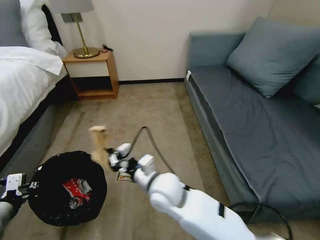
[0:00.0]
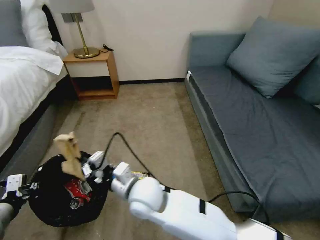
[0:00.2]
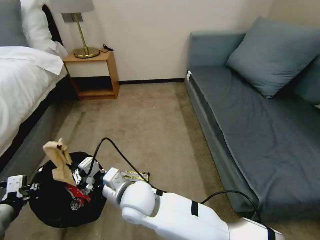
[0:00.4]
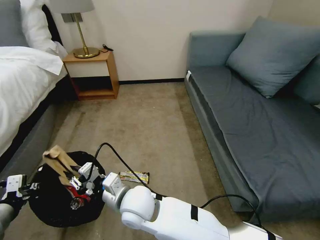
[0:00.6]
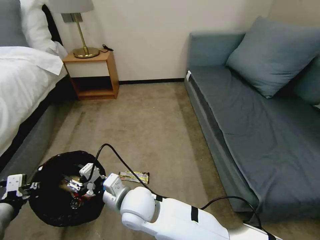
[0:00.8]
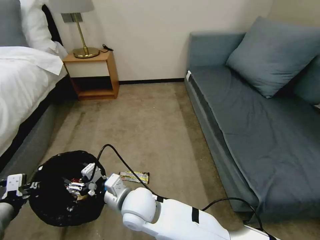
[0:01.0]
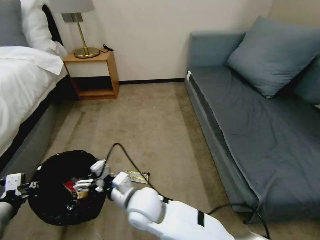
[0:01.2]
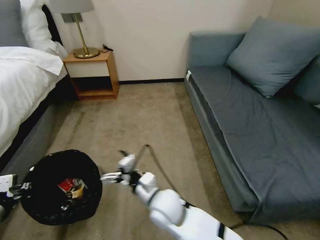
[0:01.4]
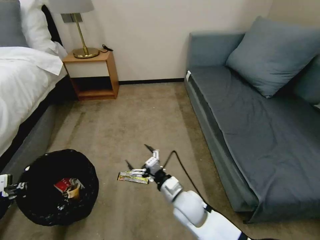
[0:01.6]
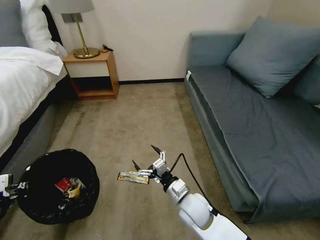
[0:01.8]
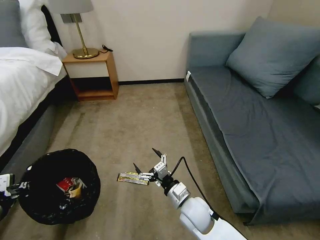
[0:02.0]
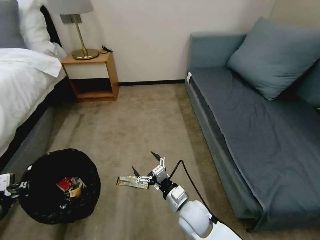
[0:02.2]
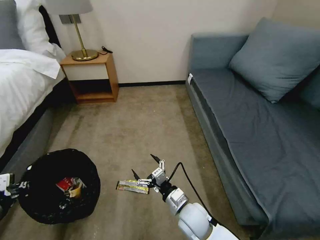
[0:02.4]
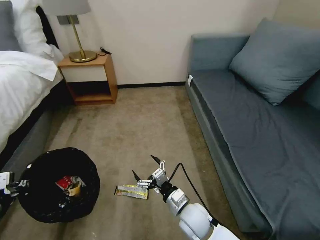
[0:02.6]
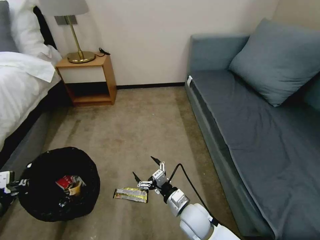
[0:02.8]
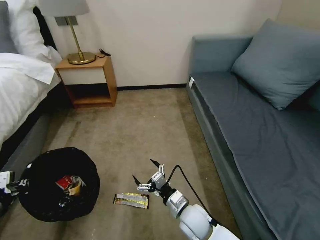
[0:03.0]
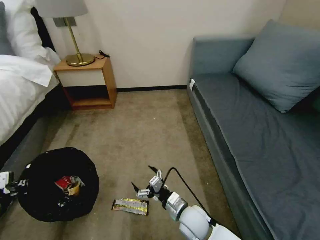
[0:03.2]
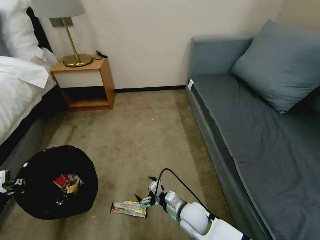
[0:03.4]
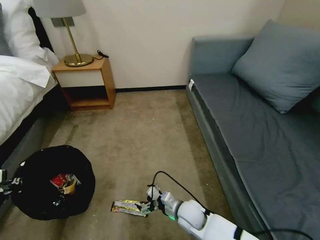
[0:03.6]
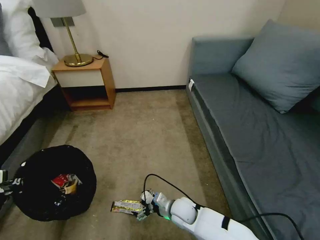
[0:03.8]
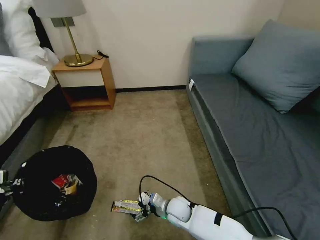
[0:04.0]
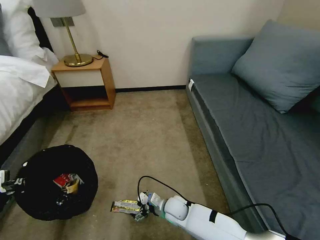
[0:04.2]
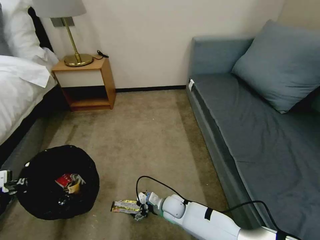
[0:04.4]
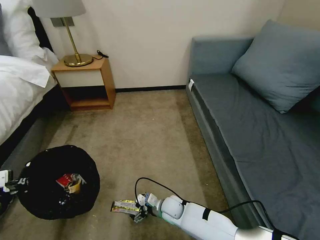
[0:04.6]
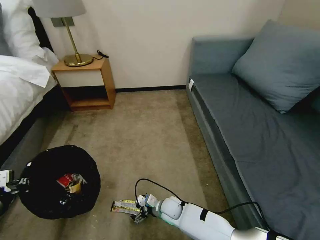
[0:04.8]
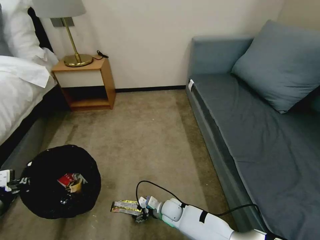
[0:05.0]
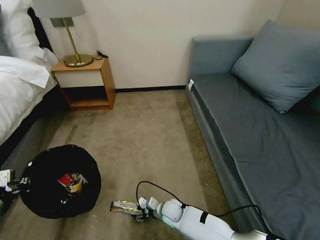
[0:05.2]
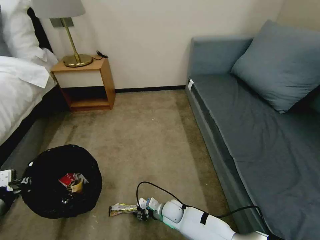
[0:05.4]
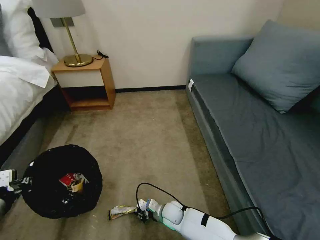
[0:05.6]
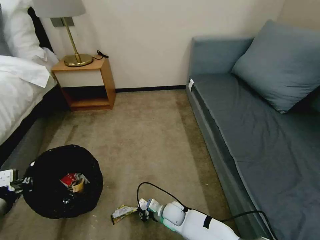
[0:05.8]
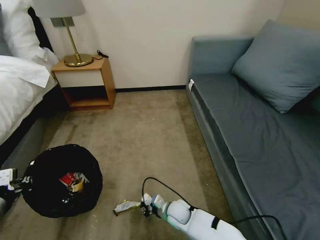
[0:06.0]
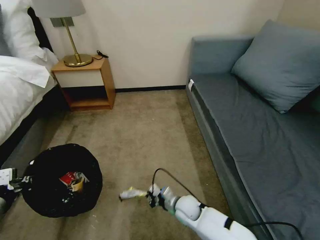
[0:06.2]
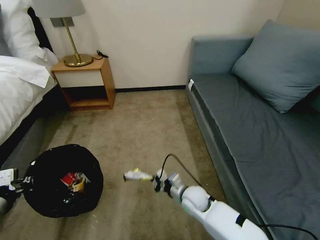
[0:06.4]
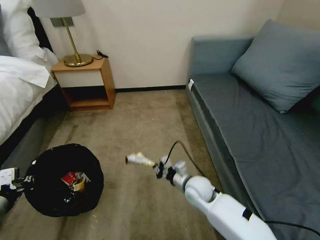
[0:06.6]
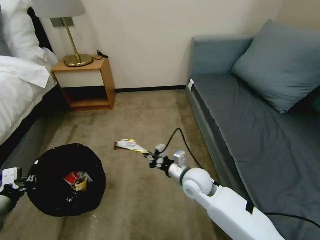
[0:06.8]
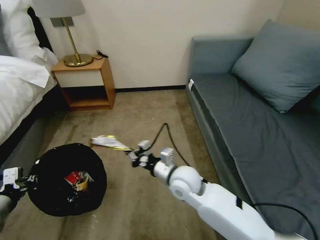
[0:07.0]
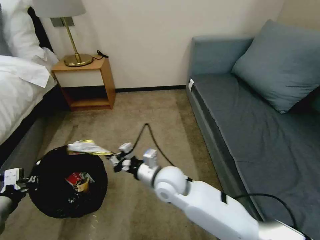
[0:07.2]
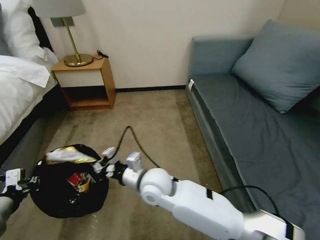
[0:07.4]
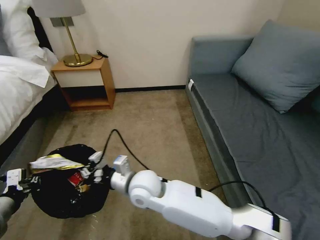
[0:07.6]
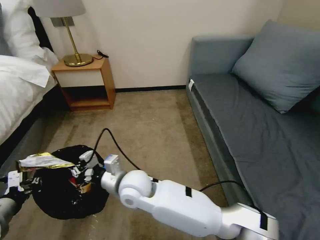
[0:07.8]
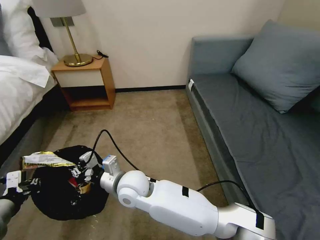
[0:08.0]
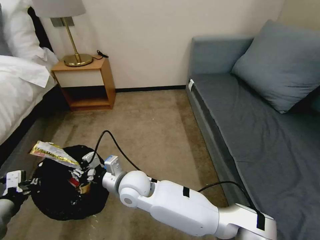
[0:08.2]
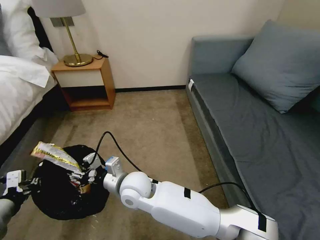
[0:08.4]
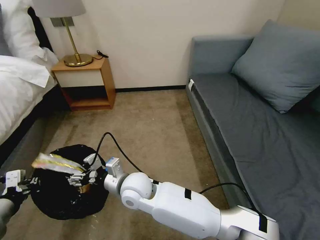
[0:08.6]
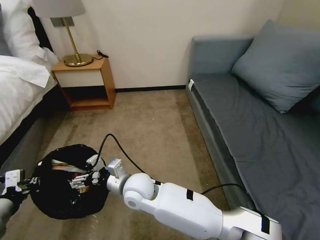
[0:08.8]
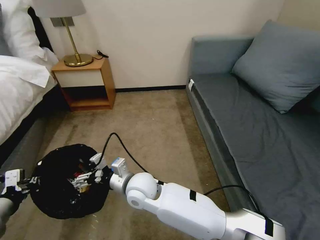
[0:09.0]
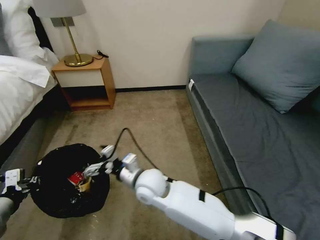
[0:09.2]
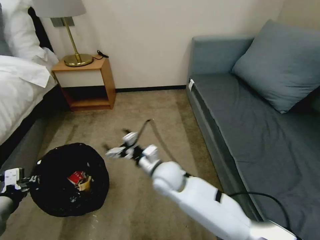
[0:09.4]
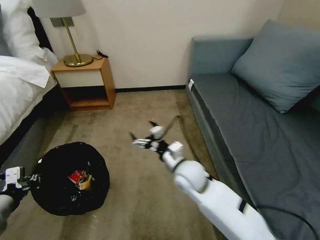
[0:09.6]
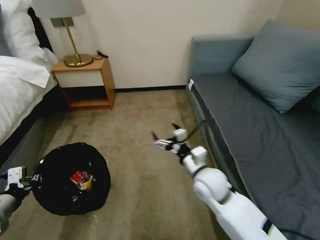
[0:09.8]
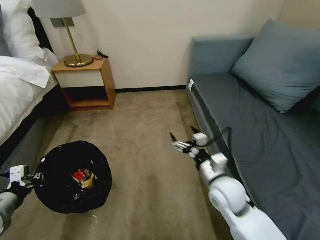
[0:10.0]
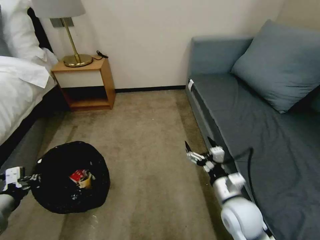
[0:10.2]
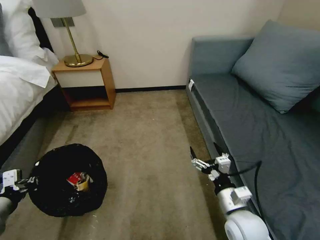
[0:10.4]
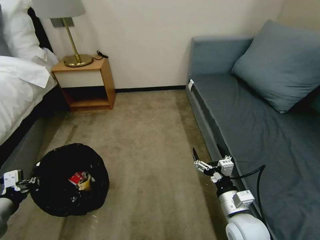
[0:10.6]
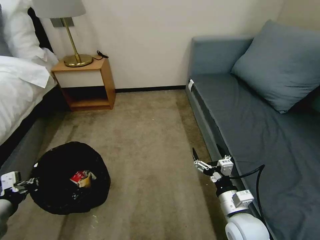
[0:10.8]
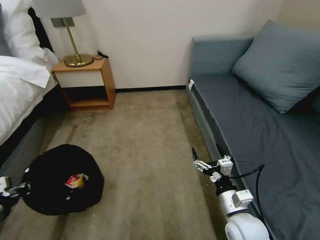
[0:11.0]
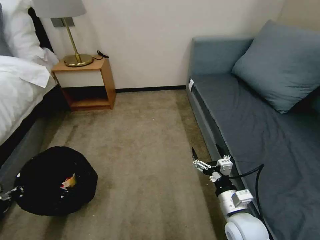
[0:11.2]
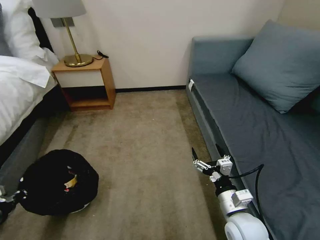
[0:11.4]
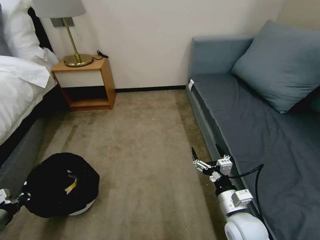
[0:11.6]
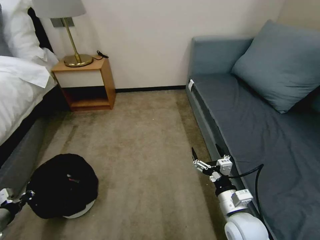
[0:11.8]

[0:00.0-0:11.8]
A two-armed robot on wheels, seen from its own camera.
Task of the whole recording: Pick up the trash bin, then pick up the garbage on the floor and place it into the trash bin.
0:00.0 to 0:01.4: The right gripper moves downward, roughly 5 cm, moves about 10 cm to the left and comes back, and opens its fingers.
0:01.4 to 0:03.0: The right gripper moves to the right and downward, some 15 cm.
0:03.0 to 0:04.4: The right gripper heads downward, forward and to the left, covering approximately 15 cm.
0:04.4 to 0:06.0: The right gripper closes.
0:06.0 to 0:07.4: The right gripper goes some 25 cm upward.
0:07.4 to 0:08.8: The right gripper shifts about 5 cm to the left, and opens.
0:08.8 to 0:10.4: The right gripper is displaced to the right by some 30 cm.
0:10.4 to 0:11.8: The left gripper shifts approximately 10 cm downward and to the left.

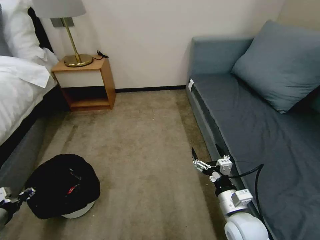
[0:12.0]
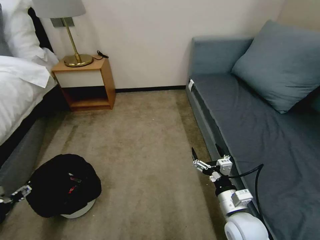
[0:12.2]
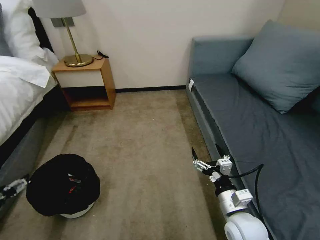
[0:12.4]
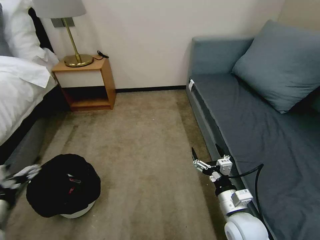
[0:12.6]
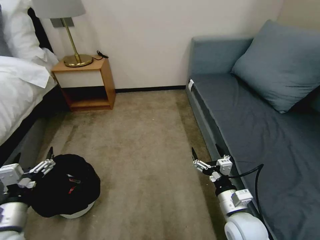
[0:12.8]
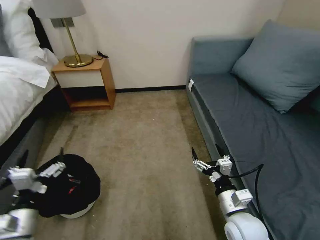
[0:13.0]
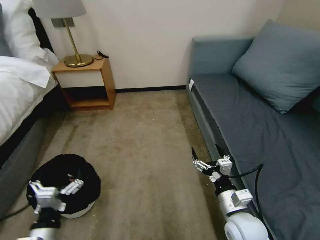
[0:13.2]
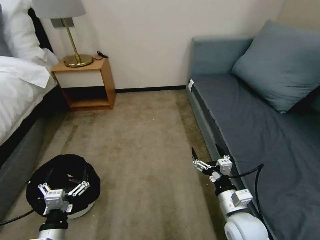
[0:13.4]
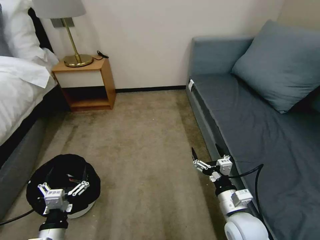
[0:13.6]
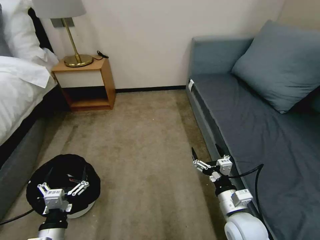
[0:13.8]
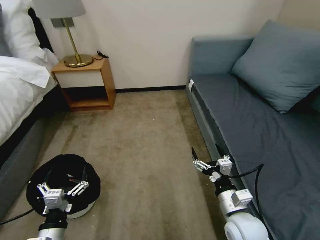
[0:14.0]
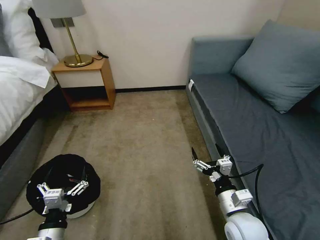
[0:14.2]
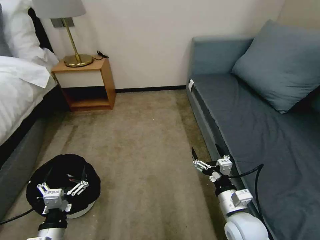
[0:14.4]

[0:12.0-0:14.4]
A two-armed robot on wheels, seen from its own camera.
Task of the whole recording: Pick up the trash bin, then pick up the garbage on the floor and place it into the trash bin.
0:12.0 to 0:13.2: The left gripper goes approximately 20 cm to the right, and opens its fingers.
0:13.2 to 0:14.4: The grippers move only a little.

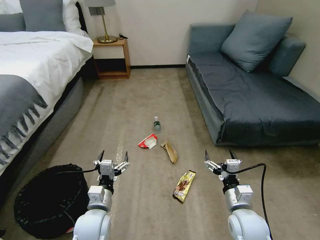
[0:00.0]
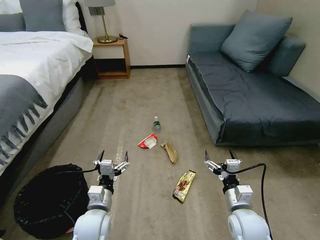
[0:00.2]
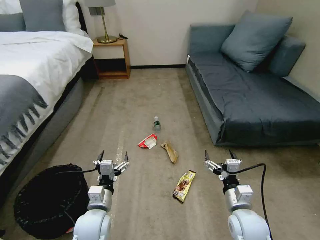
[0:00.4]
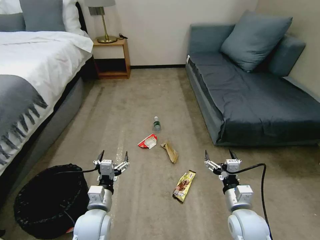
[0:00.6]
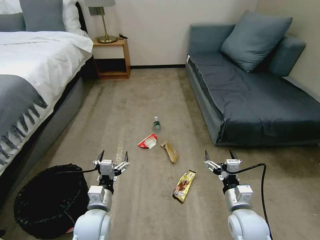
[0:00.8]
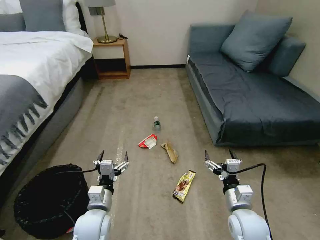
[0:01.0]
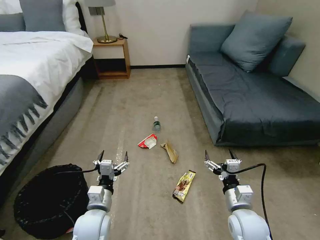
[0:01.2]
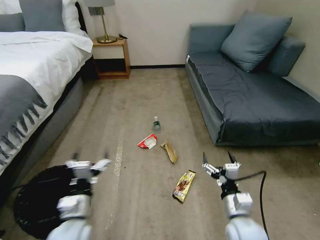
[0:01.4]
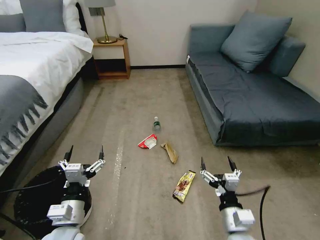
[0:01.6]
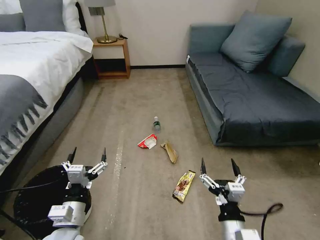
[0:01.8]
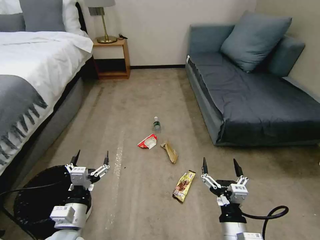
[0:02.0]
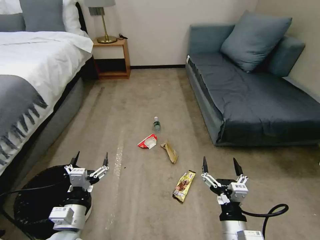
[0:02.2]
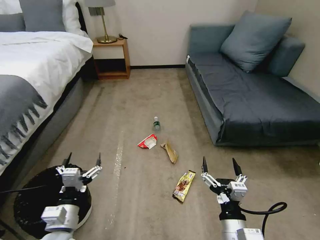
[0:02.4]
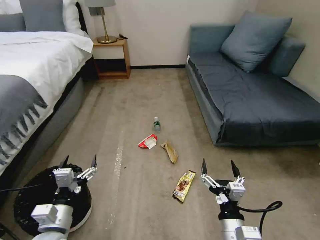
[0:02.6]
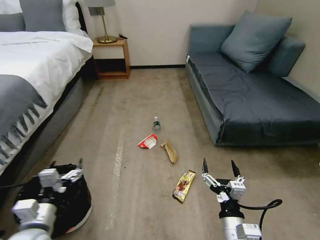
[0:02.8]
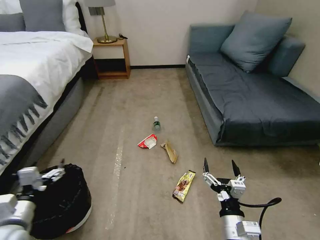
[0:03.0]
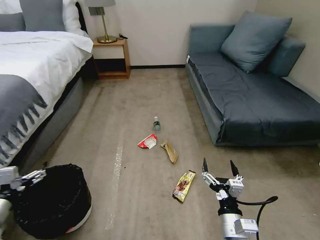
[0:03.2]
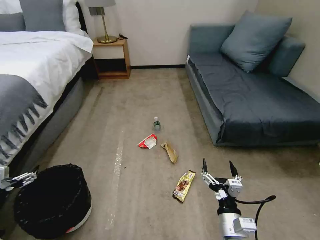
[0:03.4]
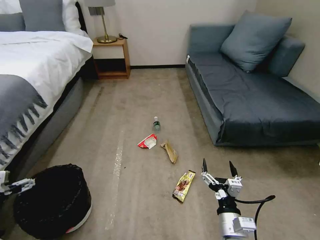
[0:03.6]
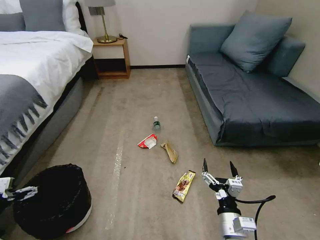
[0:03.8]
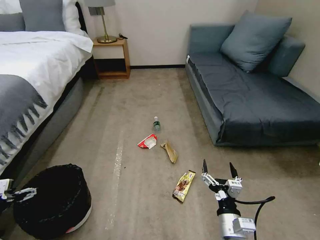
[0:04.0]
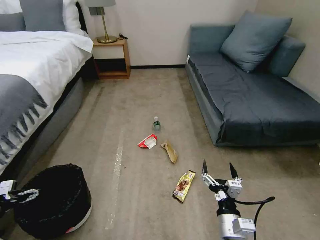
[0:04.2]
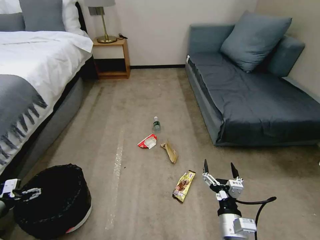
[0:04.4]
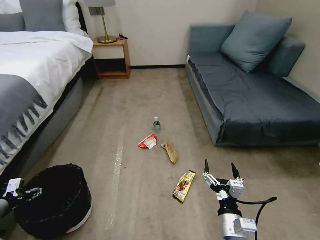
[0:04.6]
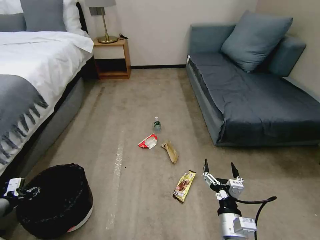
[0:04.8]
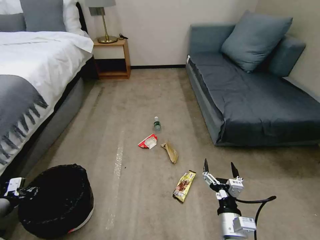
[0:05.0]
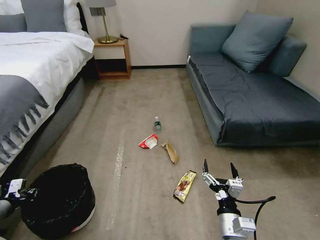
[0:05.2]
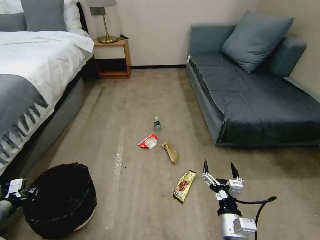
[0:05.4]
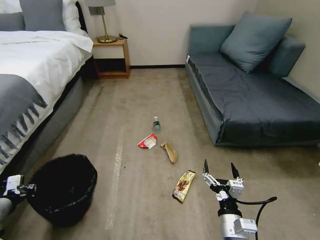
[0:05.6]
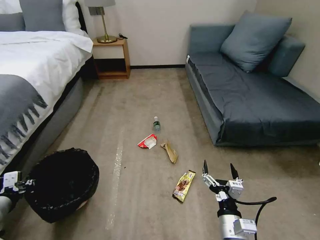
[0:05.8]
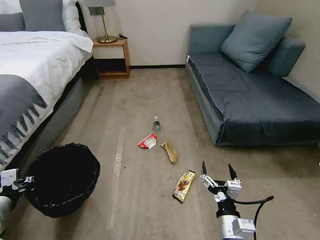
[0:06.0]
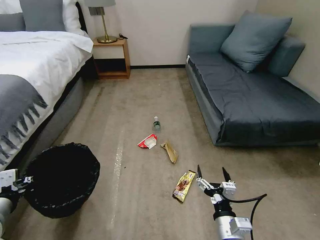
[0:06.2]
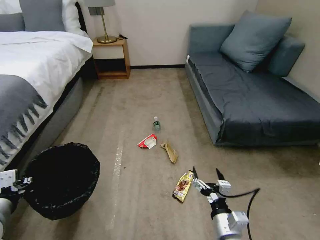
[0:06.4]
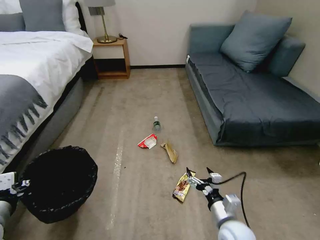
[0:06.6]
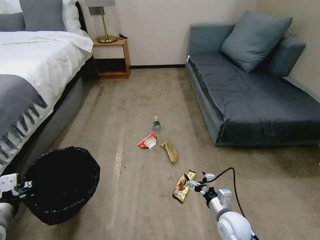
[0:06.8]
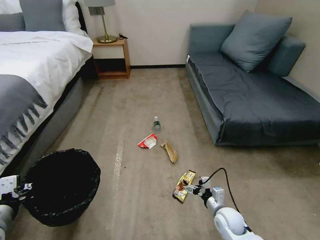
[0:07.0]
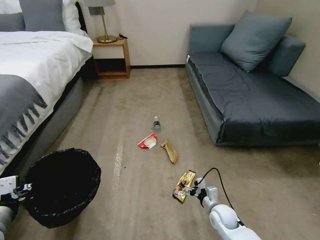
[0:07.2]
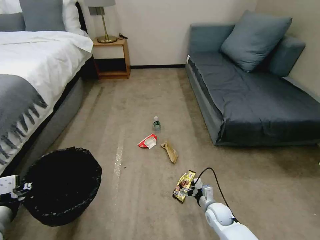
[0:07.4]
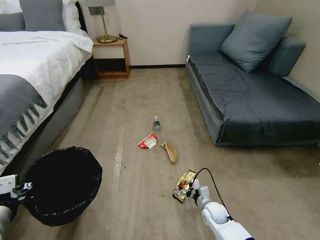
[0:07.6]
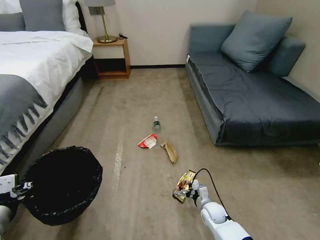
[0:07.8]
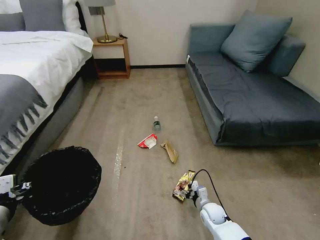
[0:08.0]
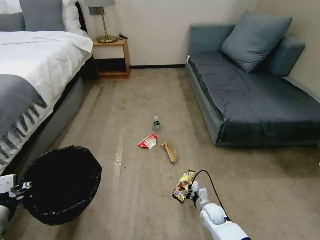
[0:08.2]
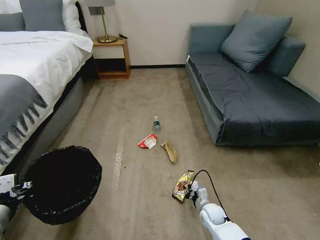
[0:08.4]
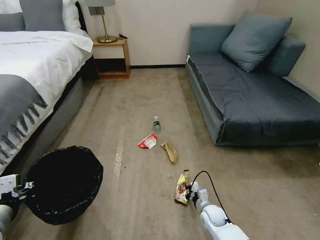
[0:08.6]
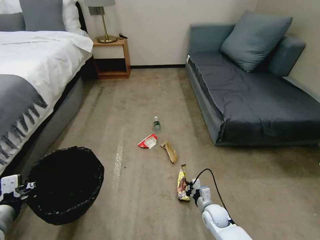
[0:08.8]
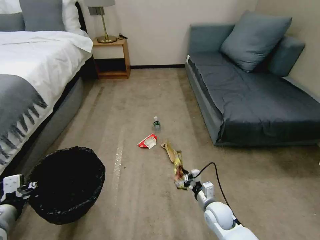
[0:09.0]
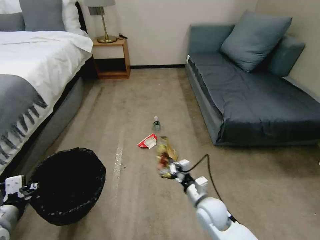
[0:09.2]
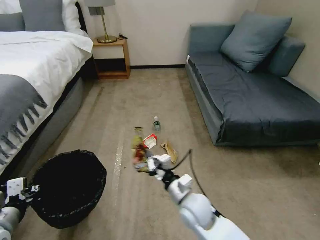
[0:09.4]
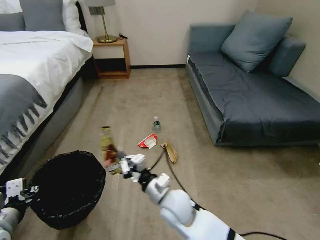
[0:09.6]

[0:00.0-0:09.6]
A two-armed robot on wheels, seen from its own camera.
Task of the whole recording: Pick up the trash bin, then pick up the garbage on the floor and place it into the trash bin.
0:01.6 to 0:03.2: The left gripper moves to the left, some 20 cm.
0:03.2 to 0:04.8: The left gripper moves to the left and downward, approximately 10 cm, and closes.
0:04.8 to 0:06.4: The left gripper travels to the right and upward by roughly 15 cm, and closes.
0:06.4 to 0:08.0: The right gripper goes about 25 cm downward and forward.
0:08.0 to 0:09.6: The right gripper moves upward and to the left, some 30 cm, and closes up.
